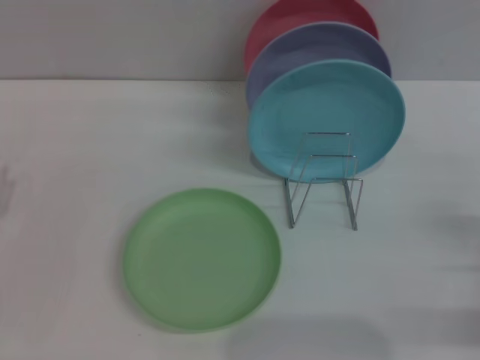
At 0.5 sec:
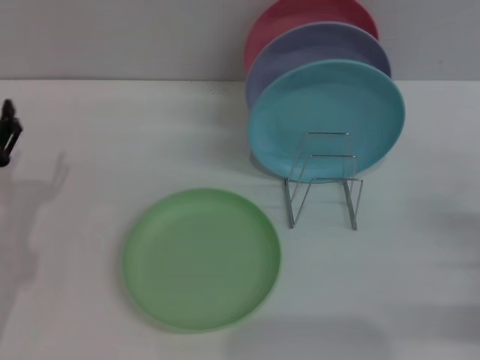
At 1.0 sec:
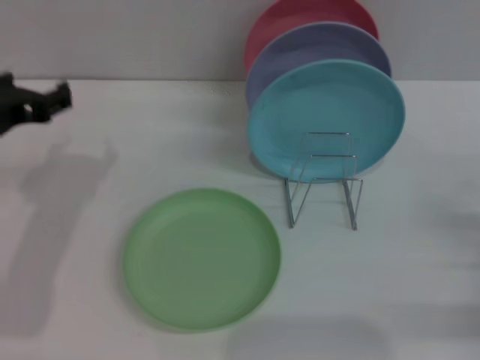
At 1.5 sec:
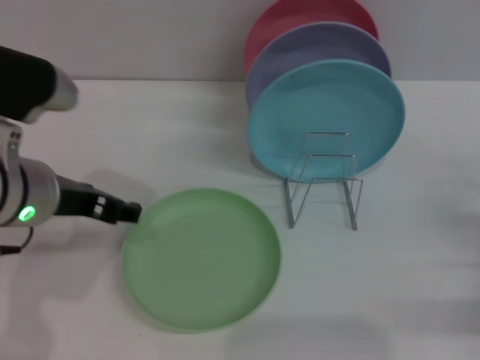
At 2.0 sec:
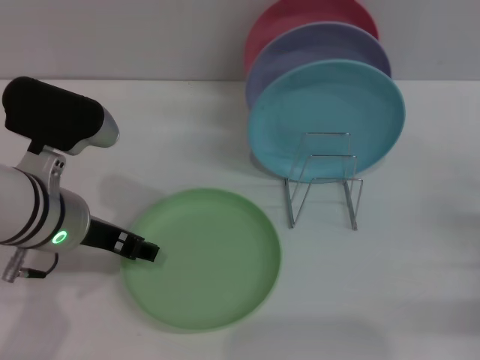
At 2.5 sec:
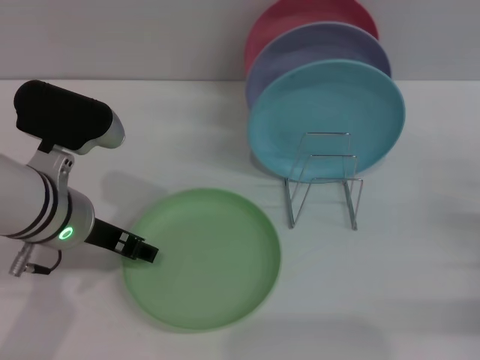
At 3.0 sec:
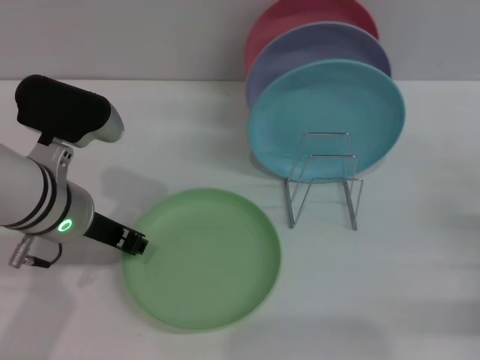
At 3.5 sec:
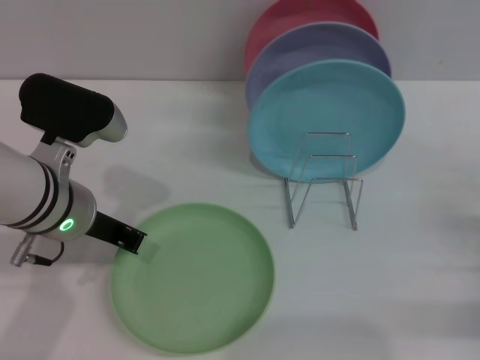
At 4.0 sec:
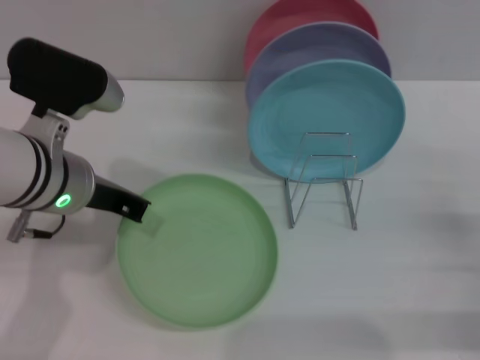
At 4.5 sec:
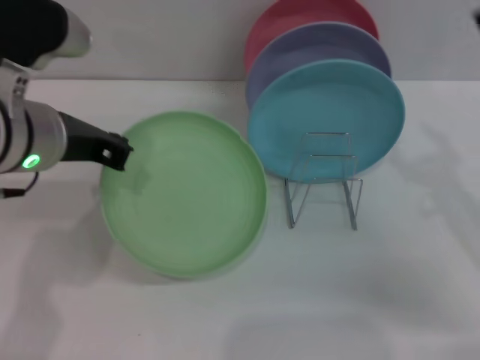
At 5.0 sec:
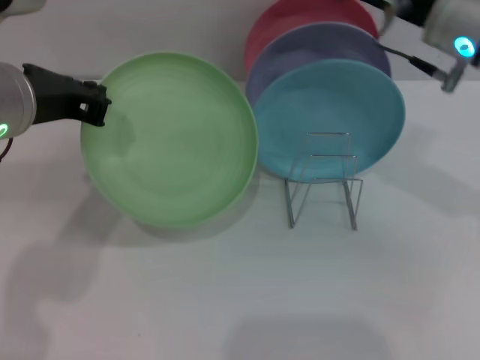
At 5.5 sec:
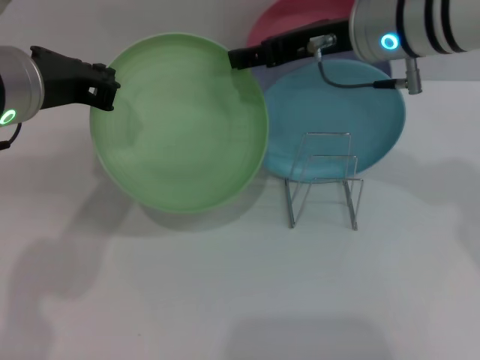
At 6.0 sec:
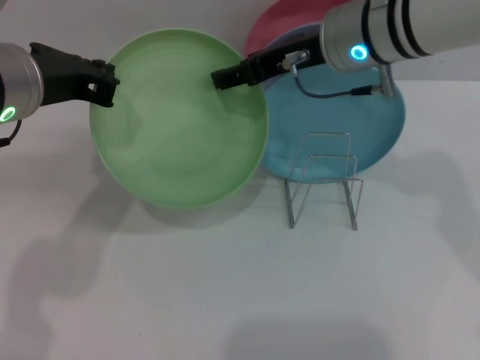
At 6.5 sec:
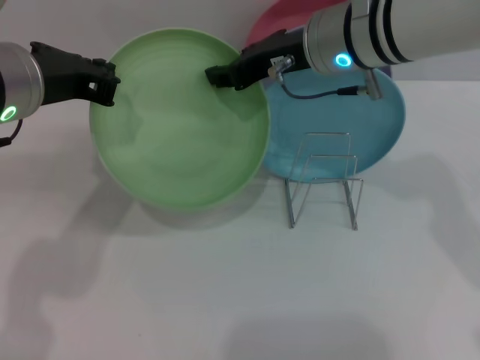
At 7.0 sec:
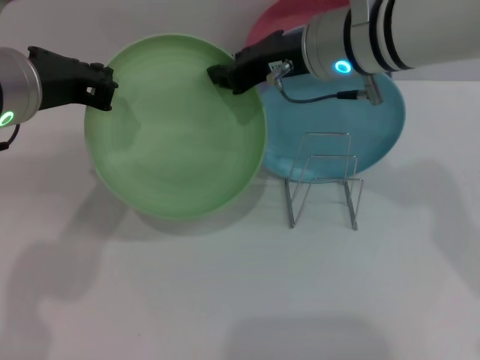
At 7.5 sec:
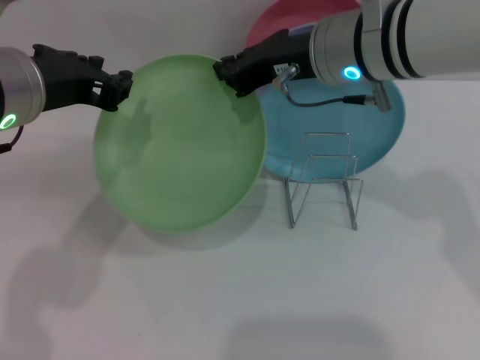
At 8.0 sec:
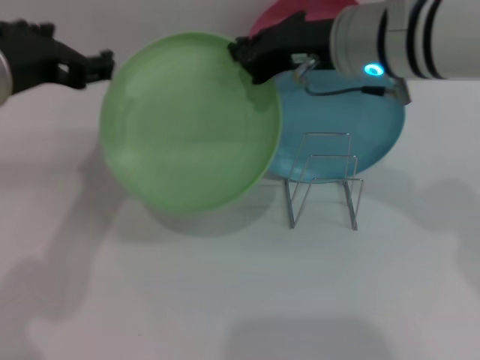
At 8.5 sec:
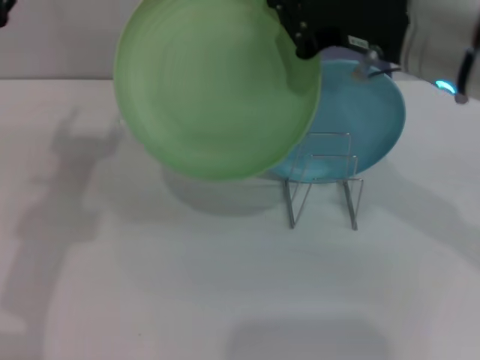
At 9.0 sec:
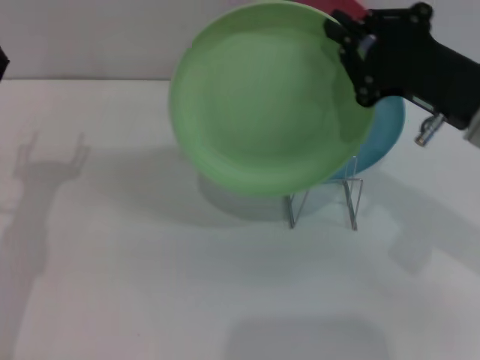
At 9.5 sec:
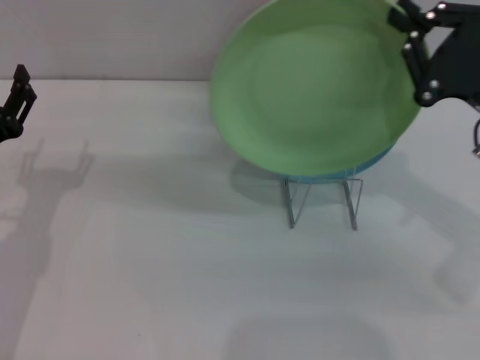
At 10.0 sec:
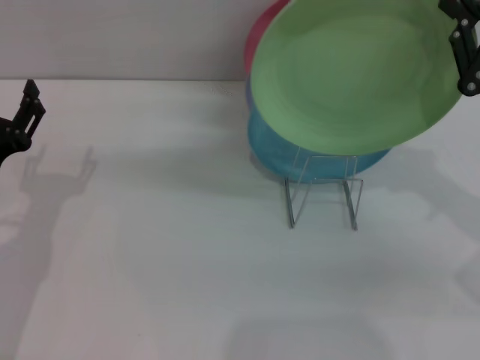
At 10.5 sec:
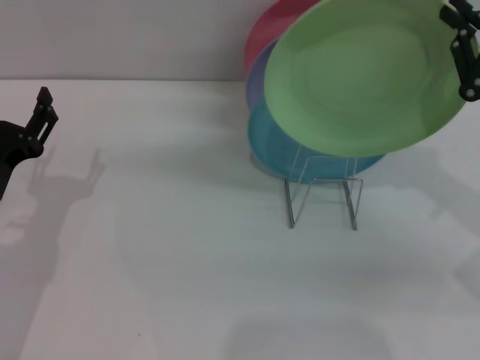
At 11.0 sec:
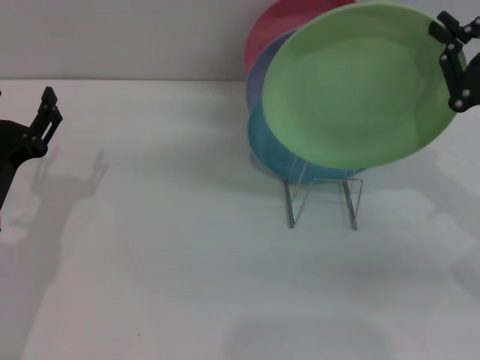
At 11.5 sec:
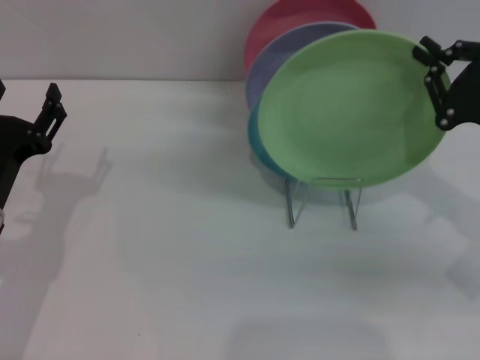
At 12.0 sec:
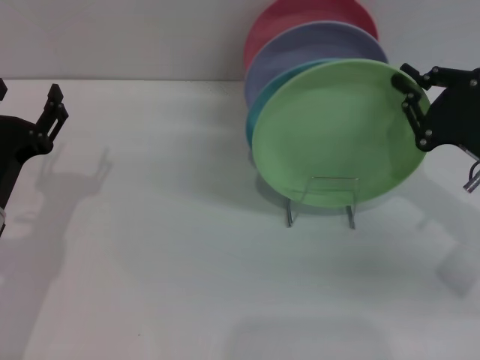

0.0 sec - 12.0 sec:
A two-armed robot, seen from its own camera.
Task of the whole recording: Grip the plate with one hand, pass it to the other, then set it on the shelf.
Step, 0.0 sec - 4.0 sec: Pick up the plate with the left gripper.
Step, 4.5 sec - 8.5 sec: Pass the plate from the left gripper to the right gripper.
0.0 sec - 2.0 sec: The left gripper goes approximately 20 cm to the right and upward.
2.0 sec - 4.0 sec: The left gripper closes.
4.0 sec - 6.0 sec: The right gripper is displaced to the left, forward and upward by approximately 35 cm; the left gripper travels upward by some 10 cm.
6.0 sec - 8.0 sec: The left gripper opens. Meanwhile the right gripper closes up.
8.0 sec - 10.0 sec: The right gripper shifts about 20 cm to the right and backward. The left gripper moves downward, approximately 20 cm.
10.0 sec - 12.0 sec: The right gripper is displaced downward by some 5 cm.

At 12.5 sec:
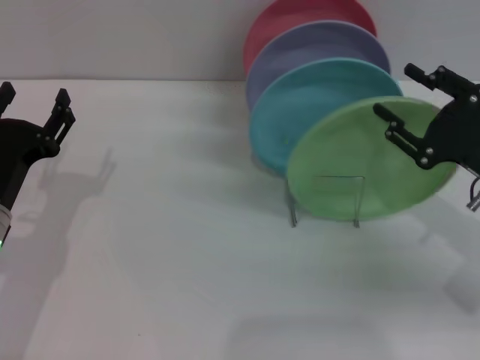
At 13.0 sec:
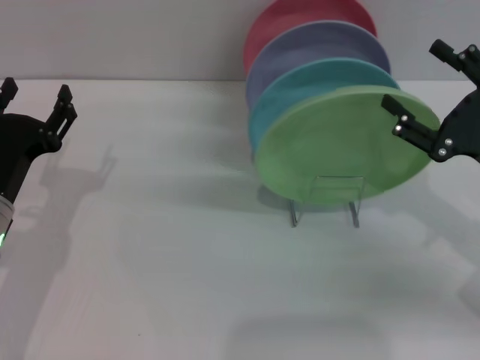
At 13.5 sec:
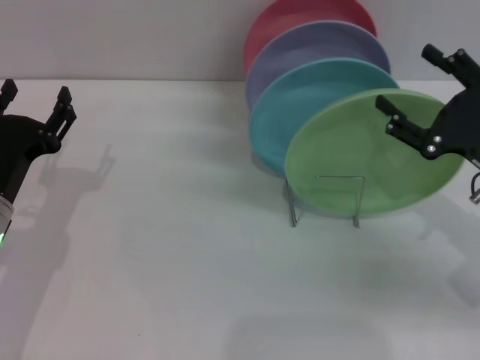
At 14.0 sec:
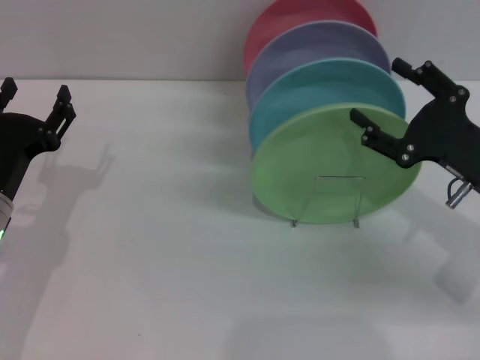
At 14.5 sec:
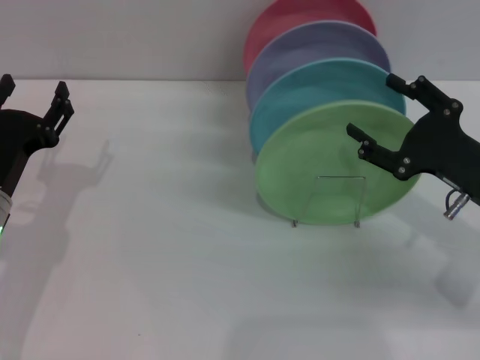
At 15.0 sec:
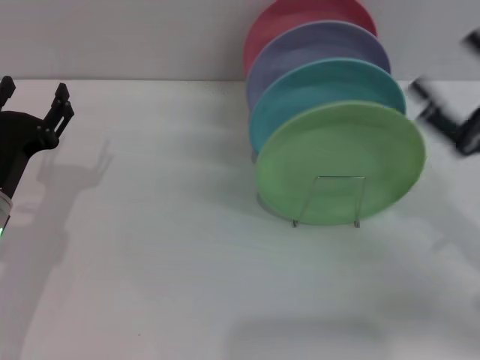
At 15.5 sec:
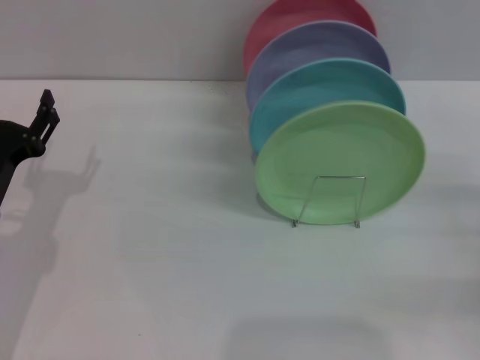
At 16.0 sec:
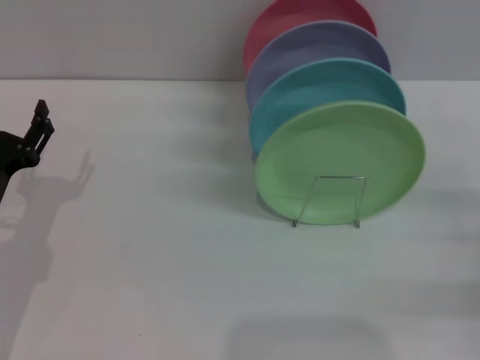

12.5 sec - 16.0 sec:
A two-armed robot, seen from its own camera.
Task of the whole recording: Grip the plate with one hand, pass it to the other, then set it on the shelf.
Step, 12.5 sec - 14.5 sec: Place the plate on the shelf with the right gripper.
12.5 sec - 14.5 sec: The right gripper opens its fingers.
14.5 sec - 16.0 sec: The right gripper is displaced to the right by some 10 cm.

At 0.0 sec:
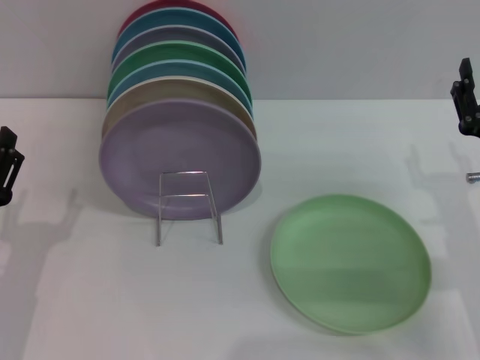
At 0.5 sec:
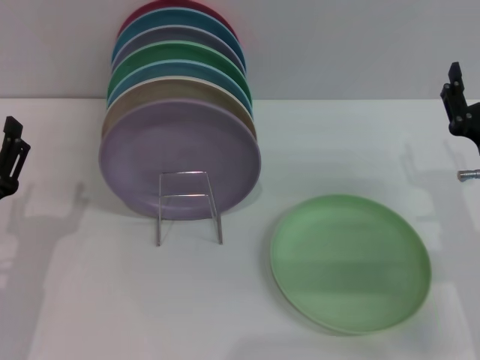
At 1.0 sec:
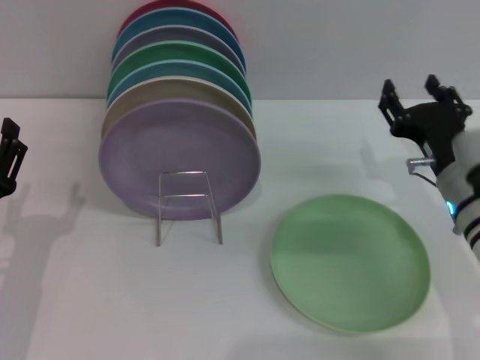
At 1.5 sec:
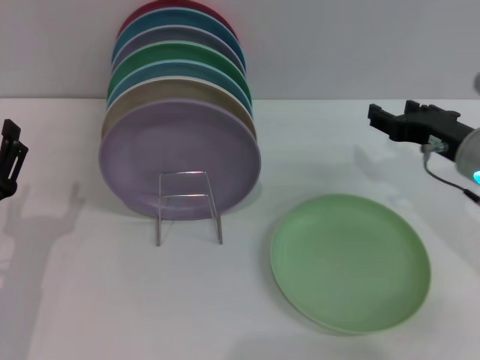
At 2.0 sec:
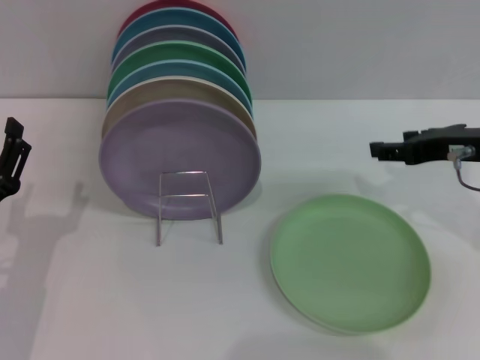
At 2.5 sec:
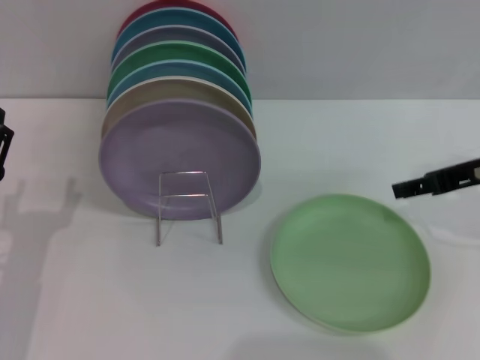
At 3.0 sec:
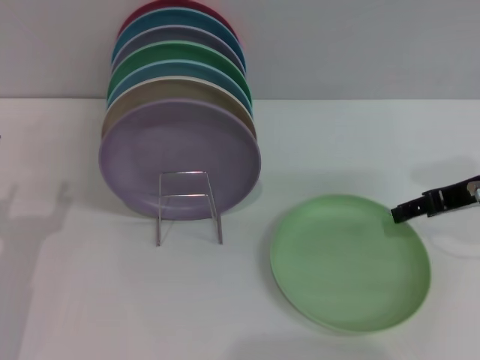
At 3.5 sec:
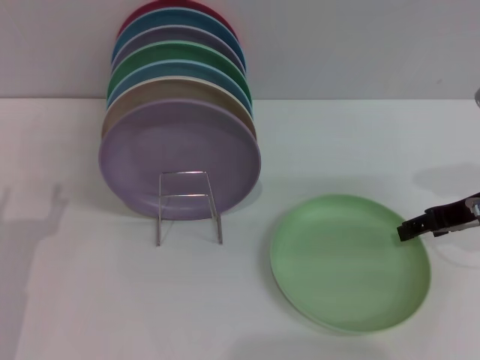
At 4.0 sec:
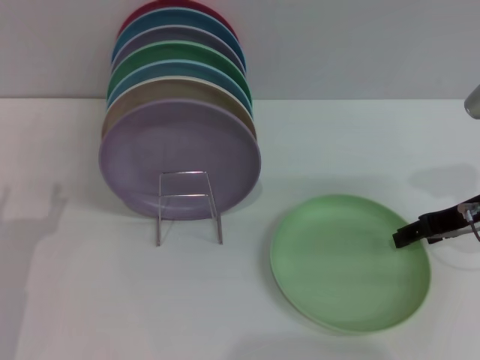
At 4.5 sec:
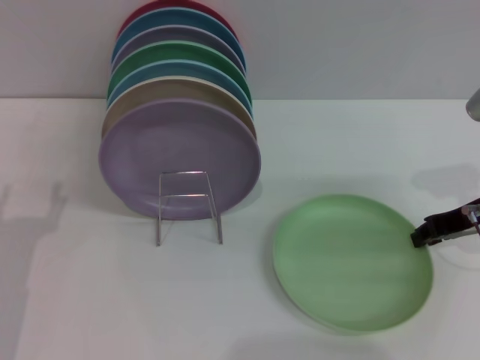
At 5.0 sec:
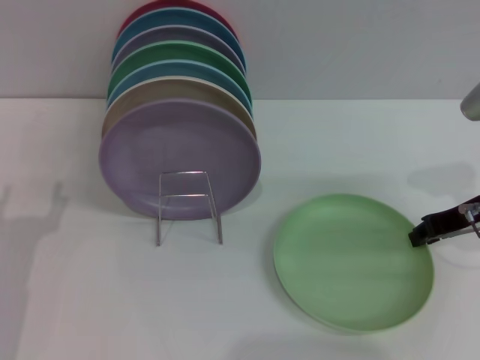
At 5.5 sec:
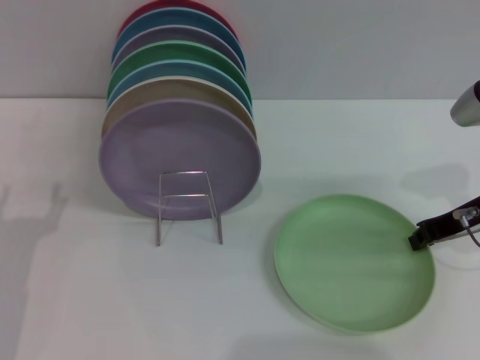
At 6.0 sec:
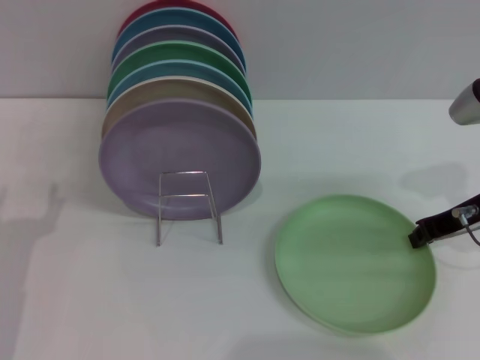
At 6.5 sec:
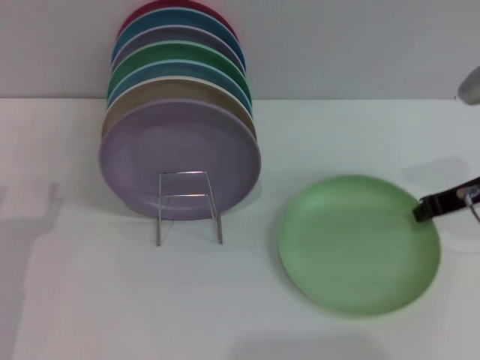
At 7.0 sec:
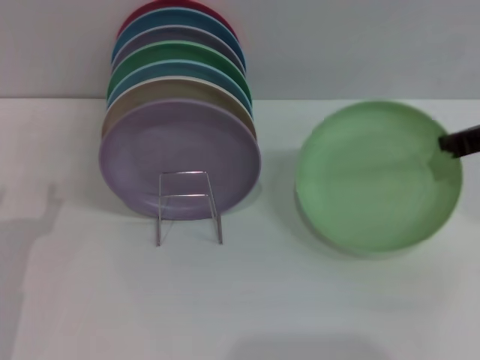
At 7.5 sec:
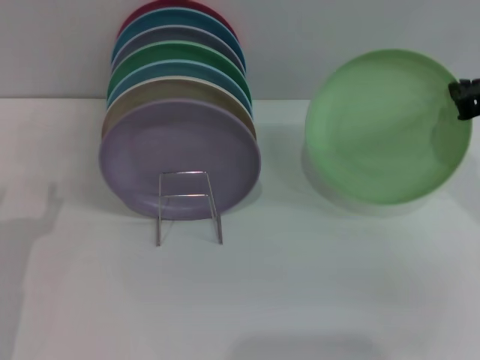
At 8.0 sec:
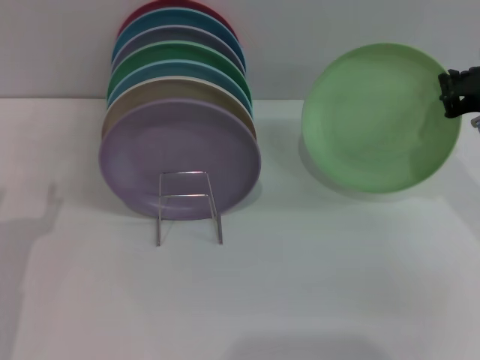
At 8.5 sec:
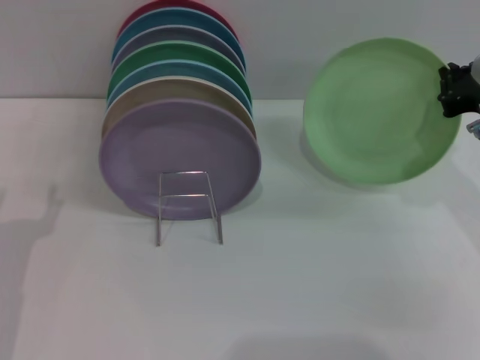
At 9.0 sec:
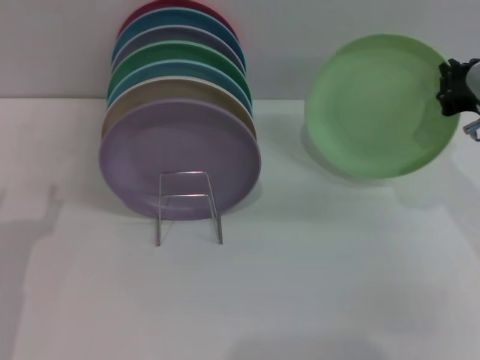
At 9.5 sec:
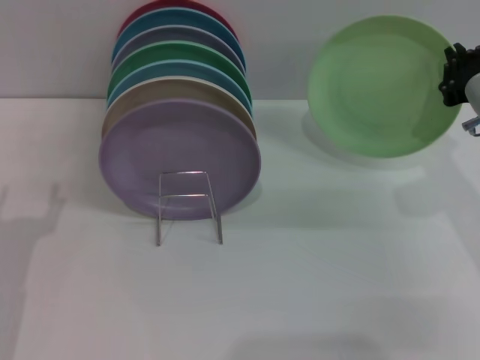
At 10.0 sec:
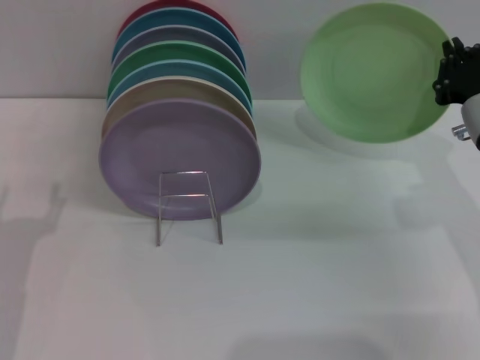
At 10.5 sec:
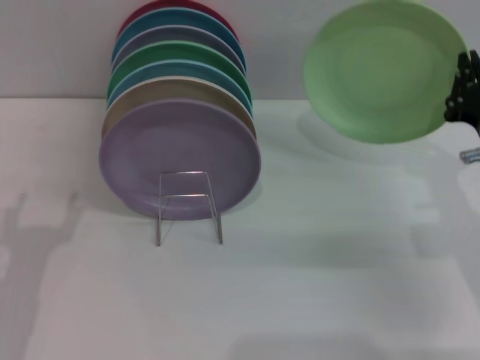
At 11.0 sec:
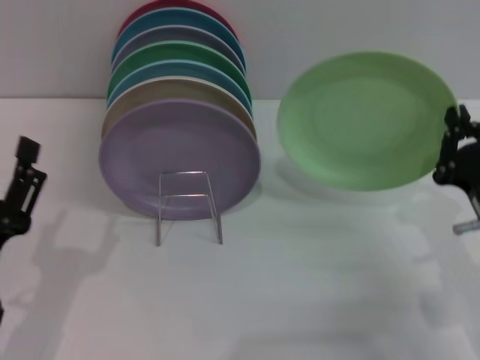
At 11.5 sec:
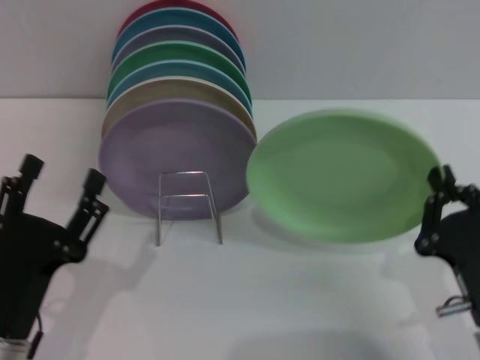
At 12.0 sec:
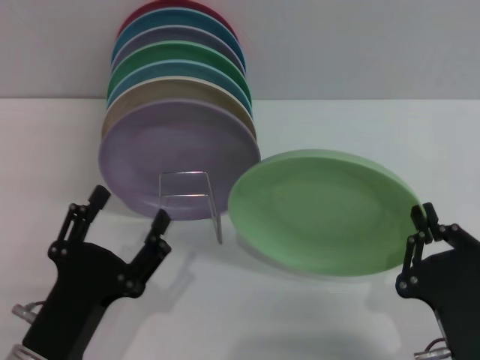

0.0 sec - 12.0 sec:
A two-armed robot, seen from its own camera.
Task of the whole recording: Grip the plate with one hand, pass it to the other, then set it on the shelf.
Step, 0.0 sec - 7.0 sec: Pick up the plate with the right gripper.
0.0 sec - 2.0 sec: The right gripper travels upward and forward by roughly 10 cm.
4.0 sec - 6.0 sec: The right gripper closes up.
6.0 sec - 8.0 sec: The right gripper moves upward, roughly 5 cm.
8.0 sec - 10.0 sec: The right gripper moves downward, about 5 cm.
10.0 sec - 12.0 sec: The right gripper goes some 20 cm backward and downward. Meanwhile the left gripper shifts roughly 10 cm to the right and backward.
